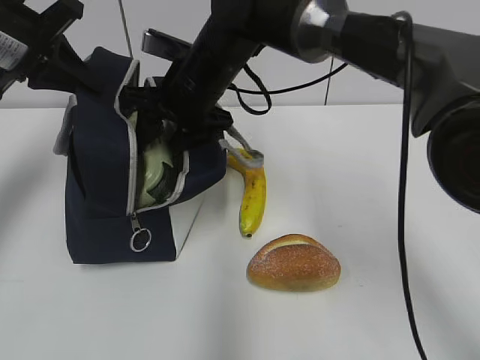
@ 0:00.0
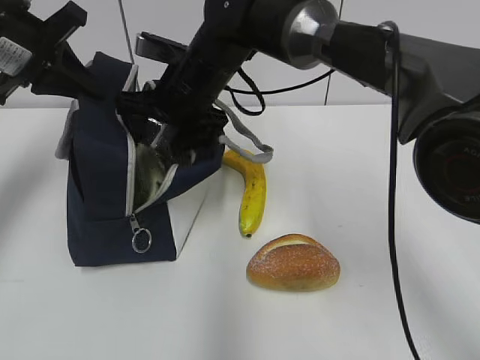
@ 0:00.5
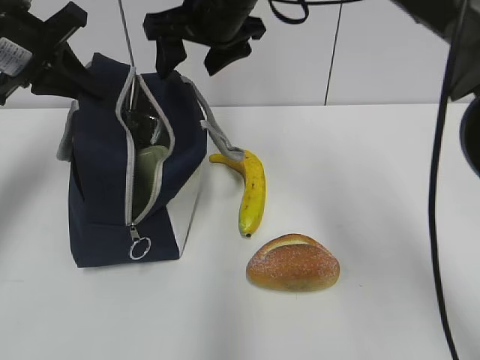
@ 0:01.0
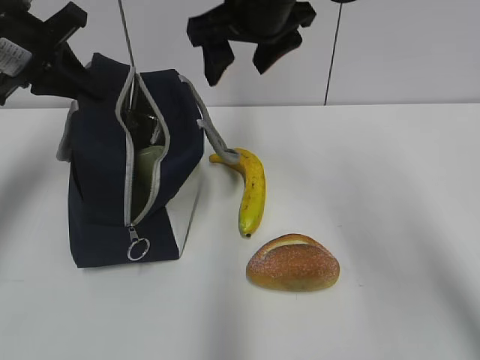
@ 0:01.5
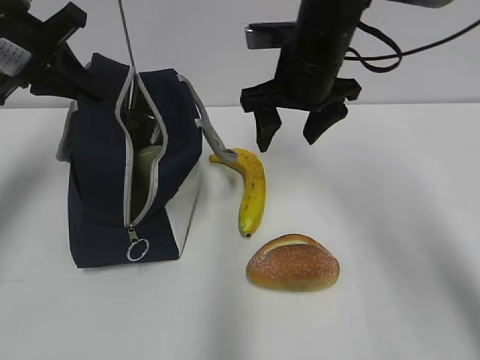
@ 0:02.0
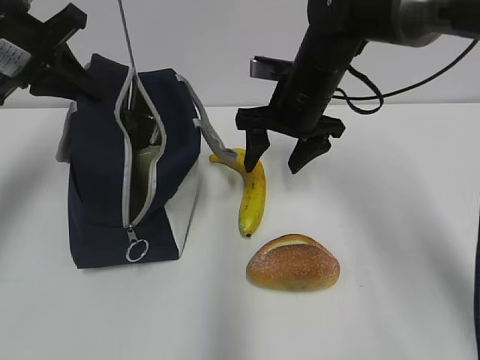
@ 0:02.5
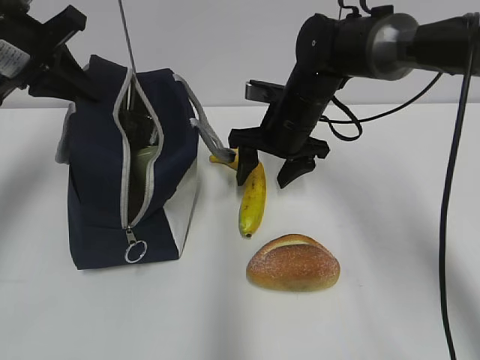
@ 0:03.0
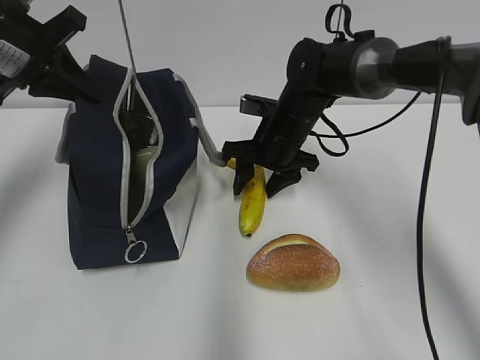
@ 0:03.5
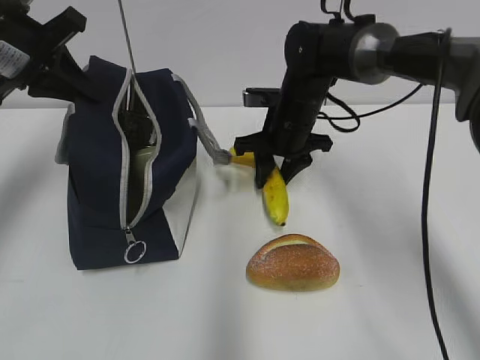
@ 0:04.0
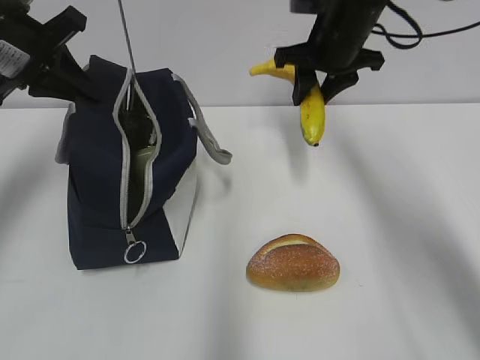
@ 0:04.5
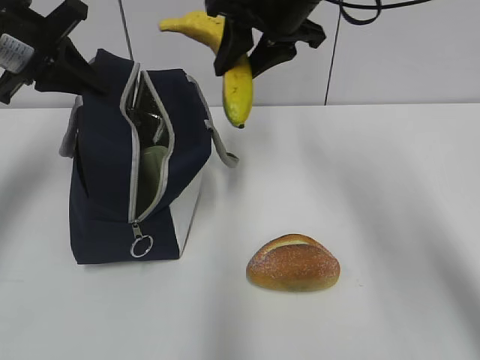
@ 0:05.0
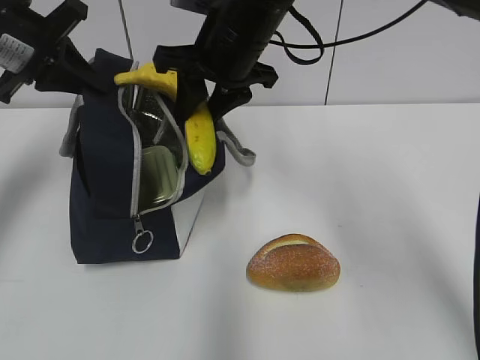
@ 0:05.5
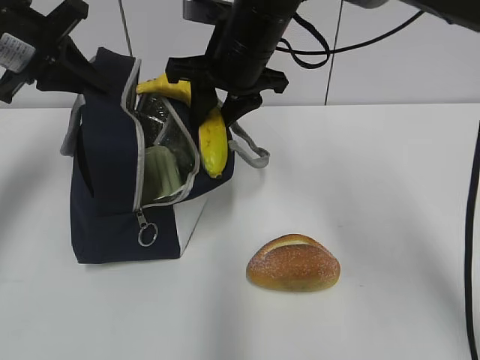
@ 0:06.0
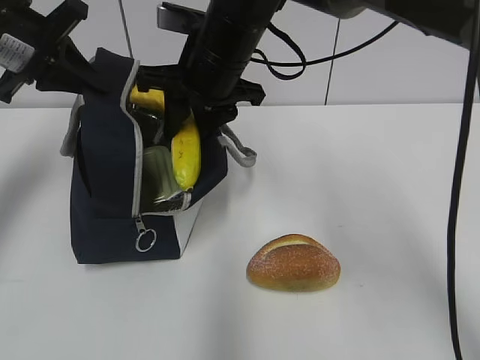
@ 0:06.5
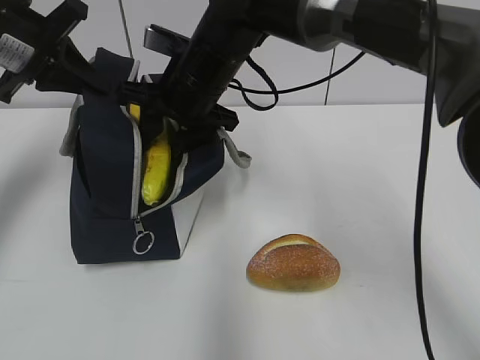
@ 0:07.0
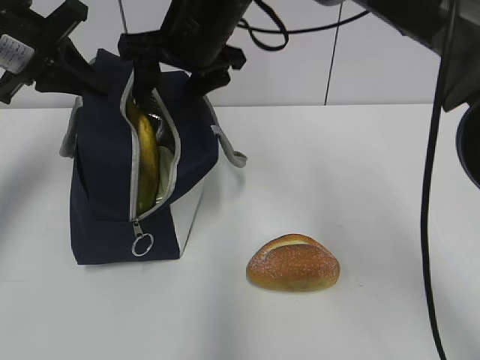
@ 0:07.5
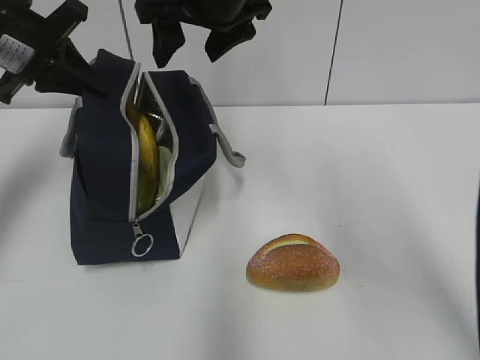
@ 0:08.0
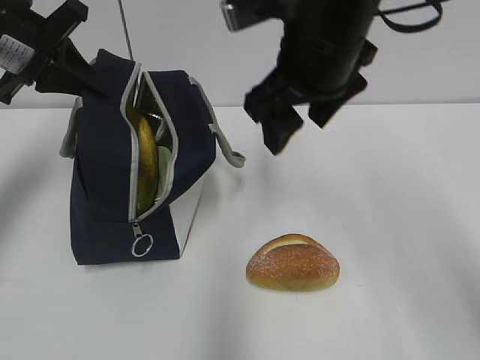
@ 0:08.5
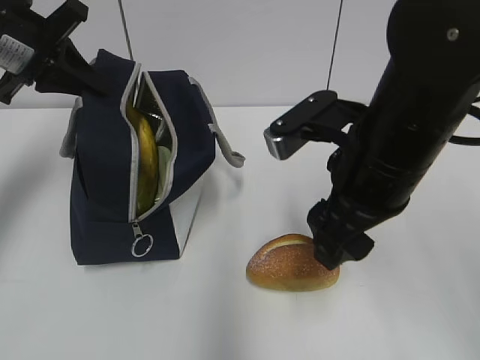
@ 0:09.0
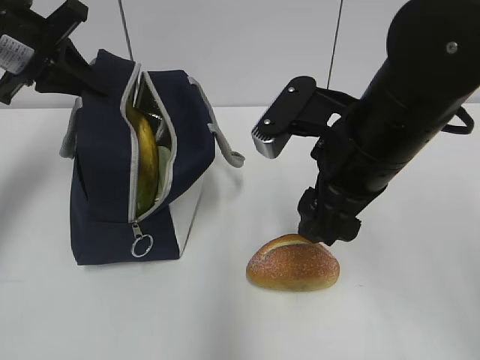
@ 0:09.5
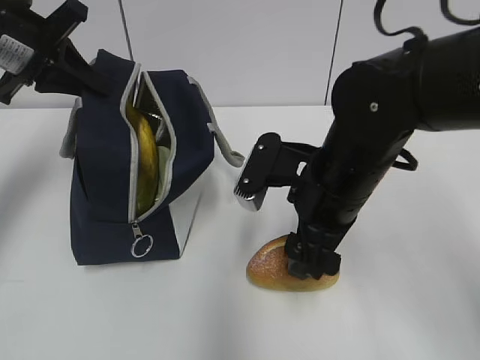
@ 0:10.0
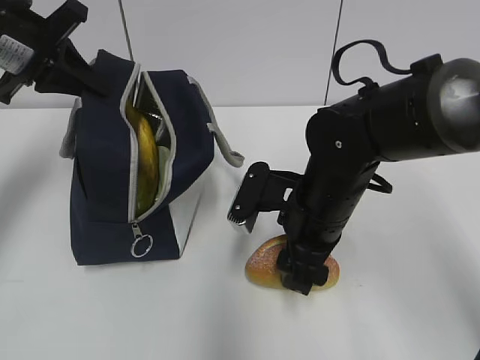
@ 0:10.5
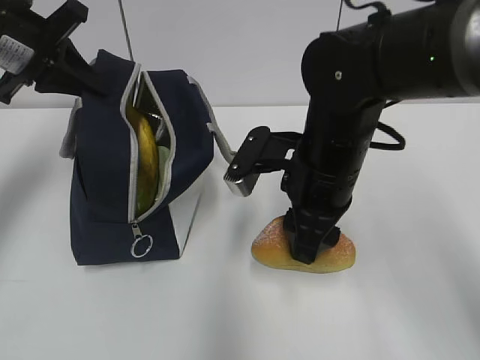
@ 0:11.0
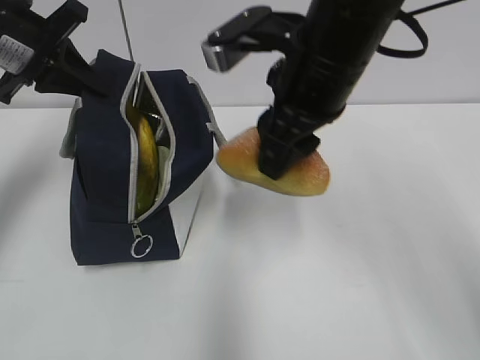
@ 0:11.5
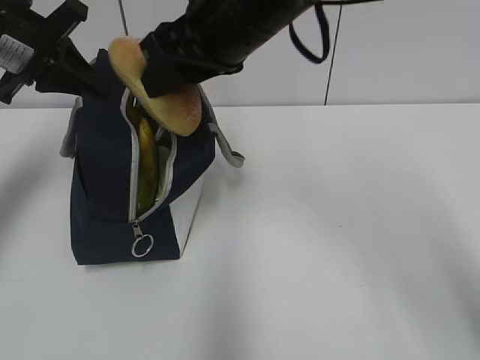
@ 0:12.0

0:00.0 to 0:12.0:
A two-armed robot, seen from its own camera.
Step, 0:01.0 to 0:03.5: Grab the banana with your right hand.
Step, 0:04.0 to 0:07.0: Place it into the bag with your right hand.
Step, 0:07.5 to 0:10.5: Grab the bread with your right hand.
0:00.0 to 0:02.0: The right gripper goes about 10 cm to the right.
0:02.0 to 0:04.0: The right gripper goes roughly 10 cm downward and forward, and closes up.
0:04.0 to 0:06.0: The right gripper moves upward and to the left, about 15 cm.
0:06.0 to 0:08.0: The right gripper heads upward, covering roughly 5 cm, and opens its fingers.
0:08.0 to 0:10.0: The right gripper moves downward, backward and to the right, about 20 cm.
0:10.0 to 0:12.0: The right gripper is displaced upward, to the left and forward by some 15 cm, and closes up.

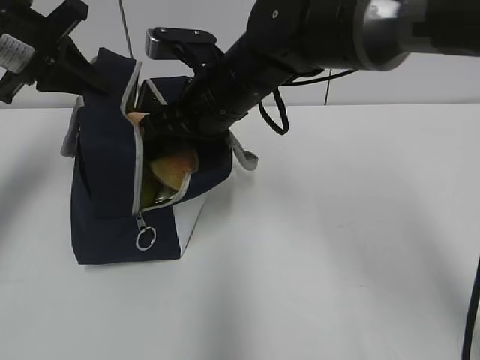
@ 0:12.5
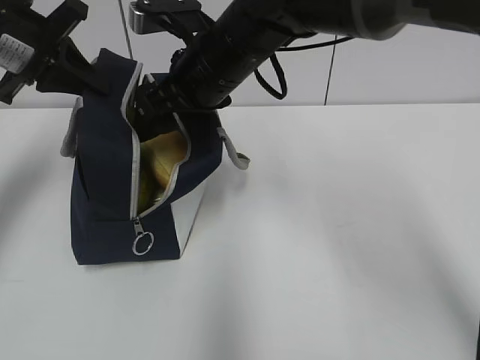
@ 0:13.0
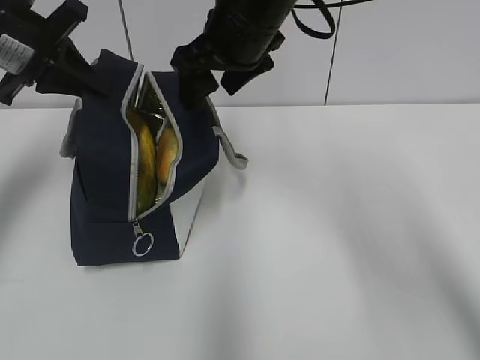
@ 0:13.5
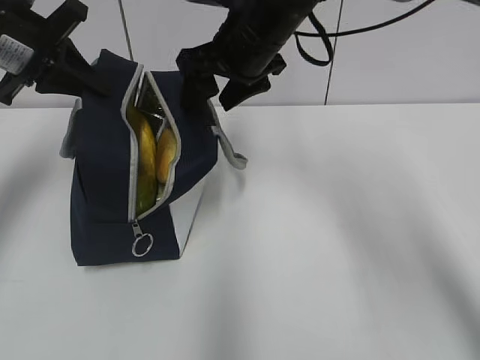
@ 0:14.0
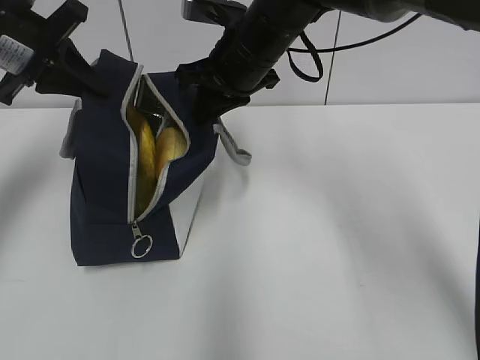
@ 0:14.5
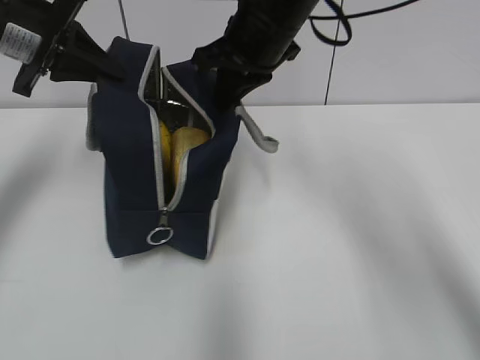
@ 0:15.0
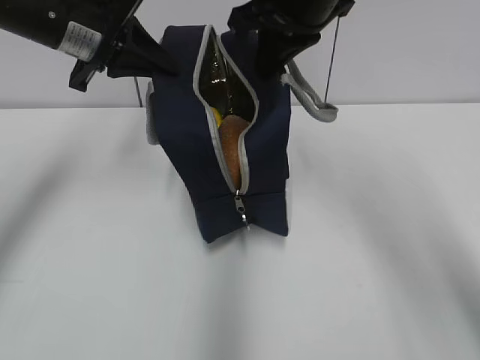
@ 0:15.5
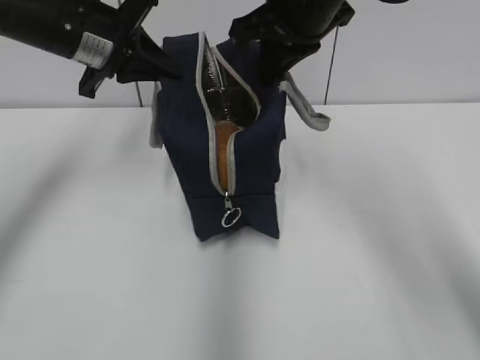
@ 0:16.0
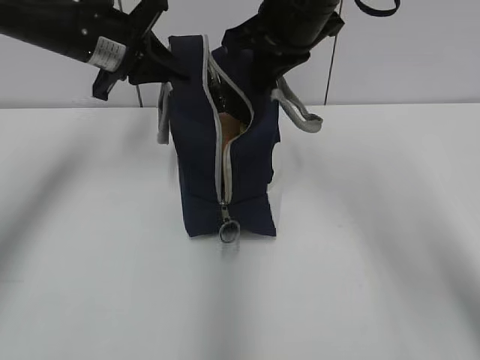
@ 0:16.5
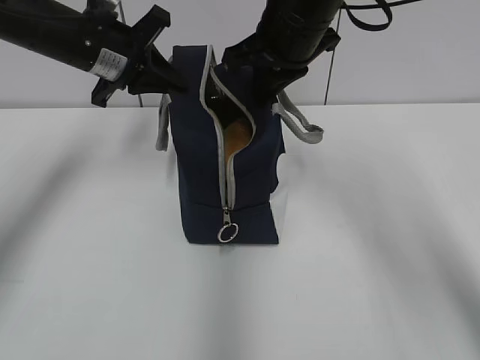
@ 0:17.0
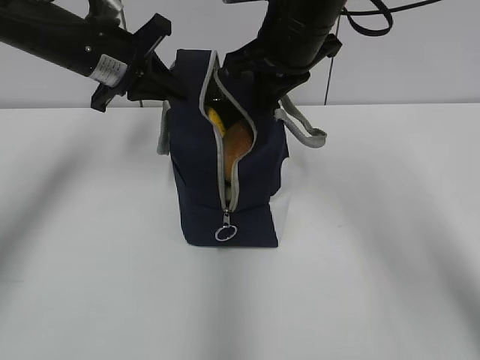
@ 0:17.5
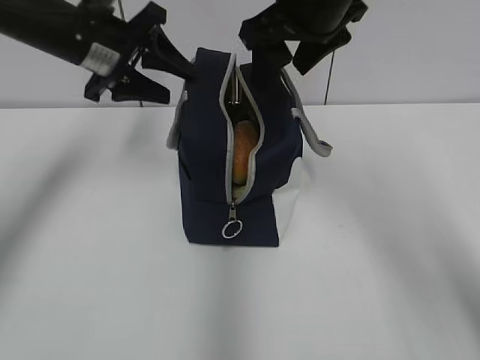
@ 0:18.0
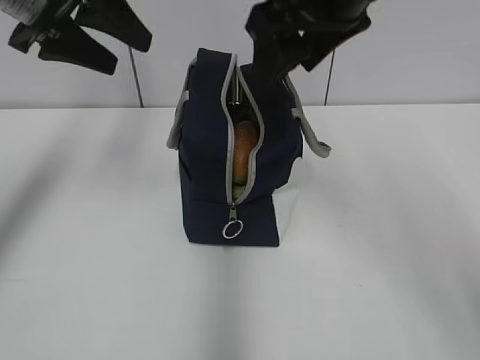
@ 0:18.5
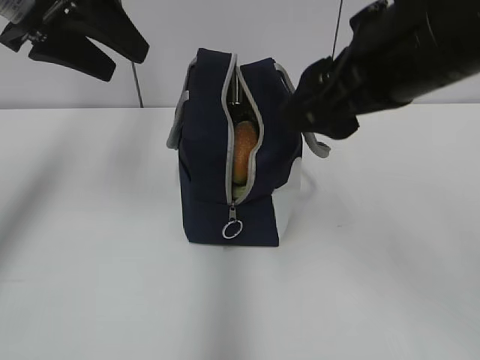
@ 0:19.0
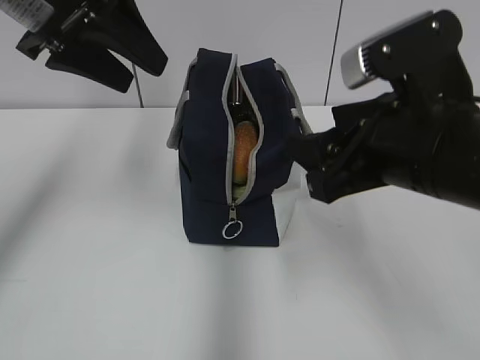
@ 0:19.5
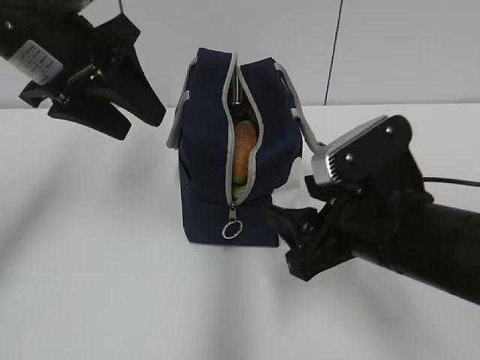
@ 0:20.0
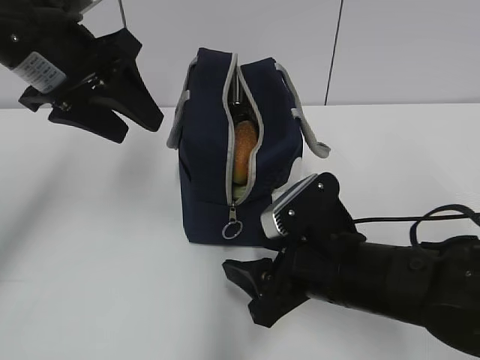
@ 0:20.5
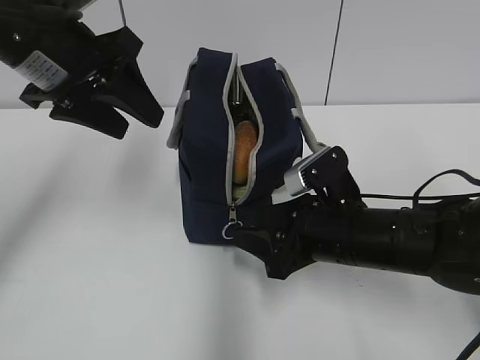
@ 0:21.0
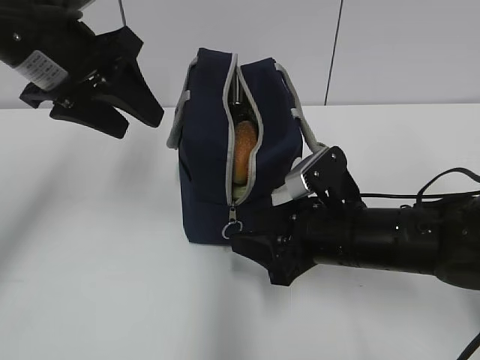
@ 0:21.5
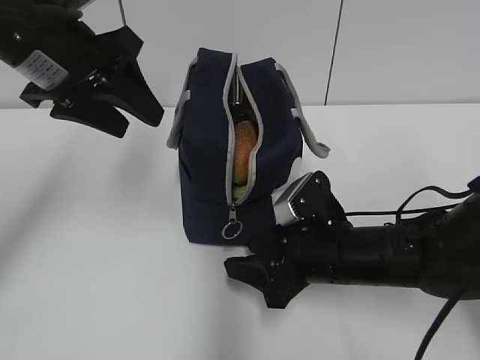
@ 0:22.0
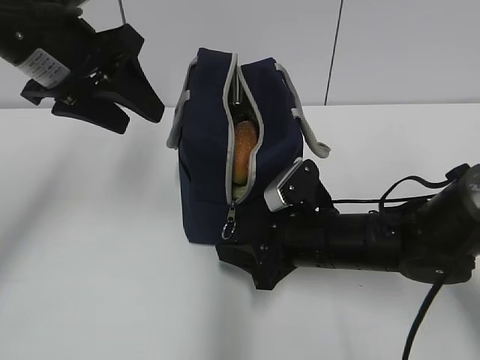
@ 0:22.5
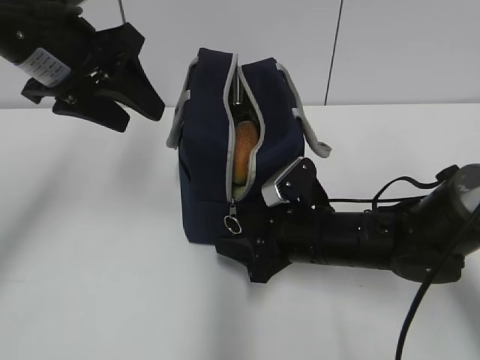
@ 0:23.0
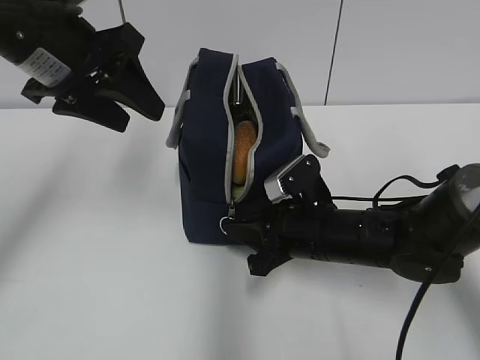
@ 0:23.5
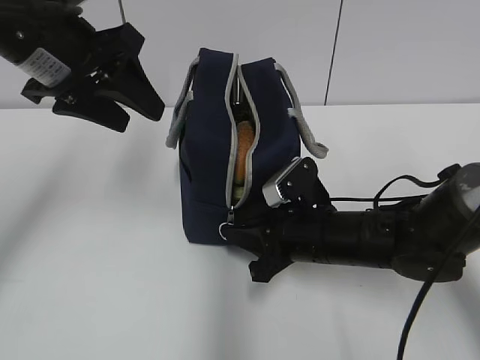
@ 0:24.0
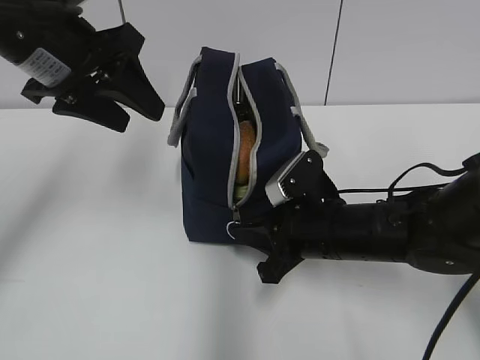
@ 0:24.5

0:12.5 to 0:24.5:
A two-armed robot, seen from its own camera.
Step, 0:13.5 to 0:14.5: Grab the lunch bag with your right hand.
Step, 0:15.0 to 0:17.5: Move the lunch bag to the right.
0:12.5 to 0:14.5: The right gripper changes place by about 5 cm, and closes.
0:14.5 to 0:16.5: The right gripper is displaced upward by approximately 5 cm. Meanwhile the left gripper heads to the right, covering about 10 cm.
0:16.5 to 0:18.5: The left gripper travels upward and backward by roughly 10 cm, and opens. The right gripper travels backward and upward by about 10 cm, and opens.
0:18.5 to 0:20.5: The right gripper is displaced downward by about 25 cm. The left gripper changes place by approximately 5 cm.
0:20.5 to 0:22.5: The right gripper shifts roughly 5 cm forward.
0:22.5 to 0:24.5: The right gripper closes its fingers.

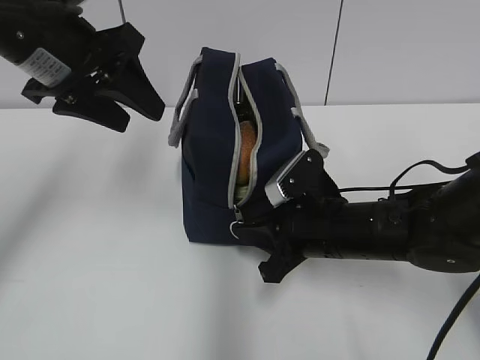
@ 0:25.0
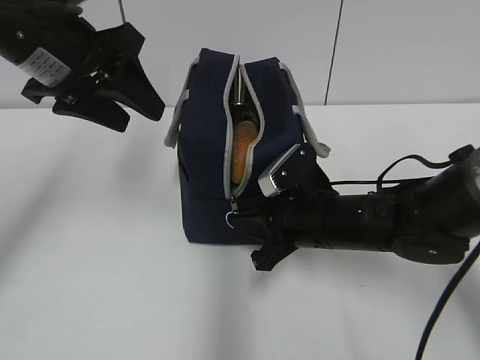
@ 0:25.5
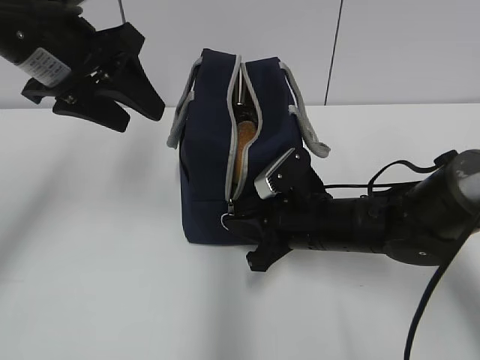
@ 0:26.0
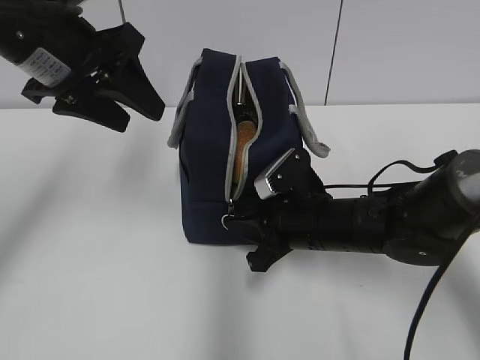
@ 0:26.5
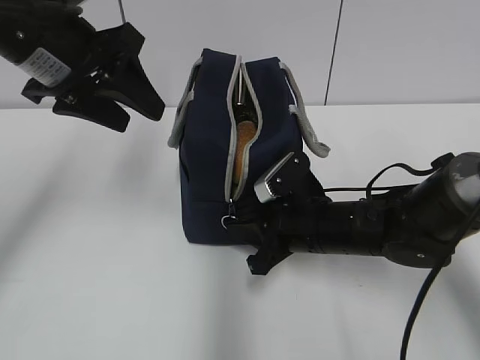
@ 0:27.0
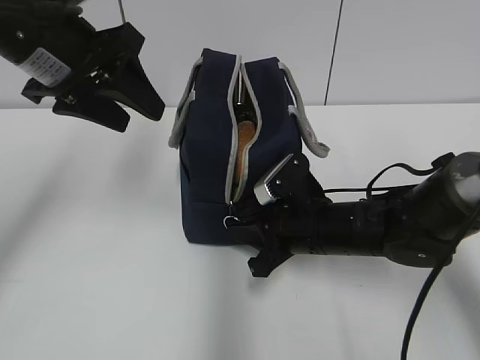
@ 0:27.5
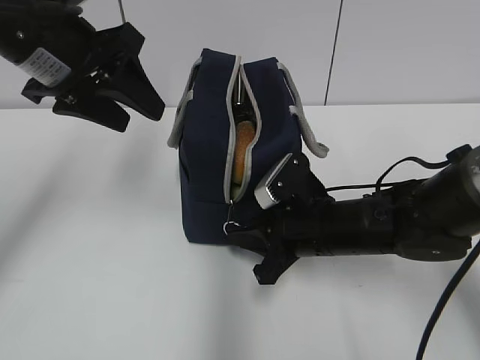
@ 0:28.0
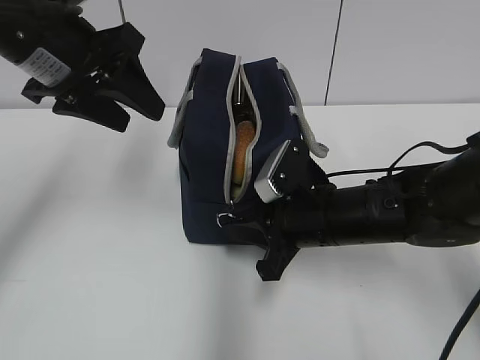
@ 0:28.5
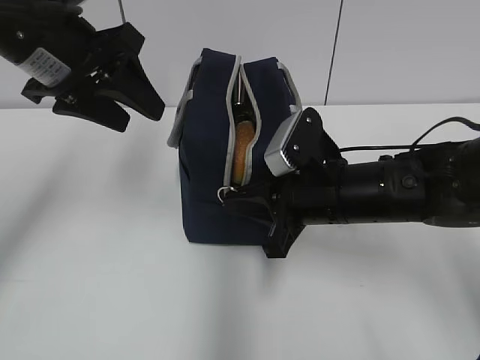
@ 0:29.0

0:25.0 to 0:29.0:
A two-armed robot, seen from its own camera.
0:25.0 to 0:27.0: The grippers make only small movements.
0:27.0 to 0:29.0: The right gripper heads upward, covering approximately 5 cm.
